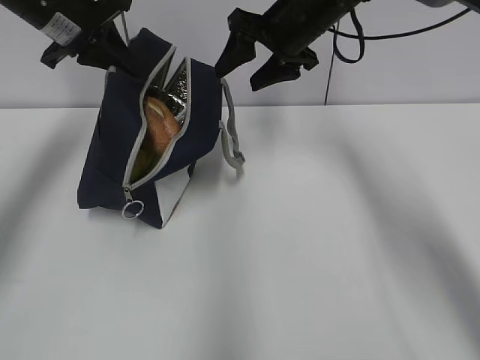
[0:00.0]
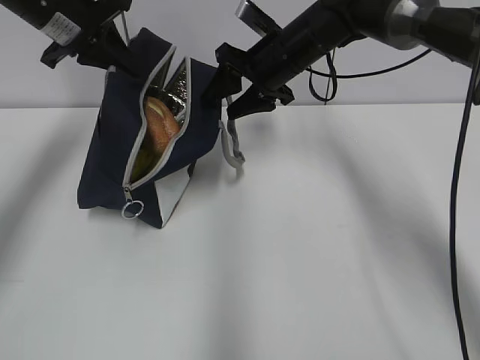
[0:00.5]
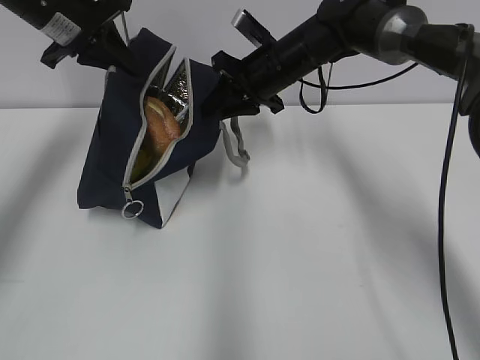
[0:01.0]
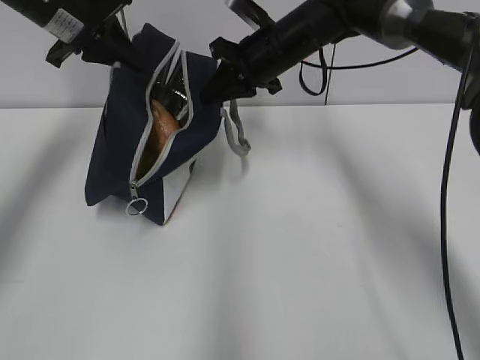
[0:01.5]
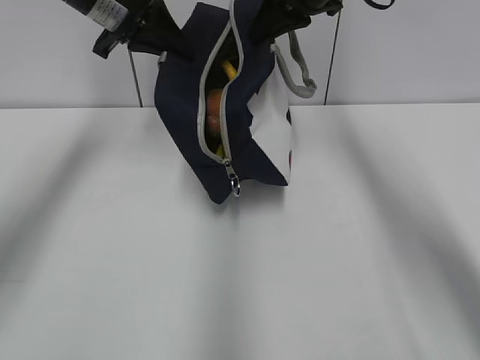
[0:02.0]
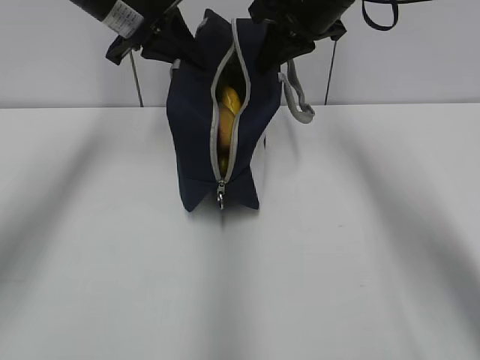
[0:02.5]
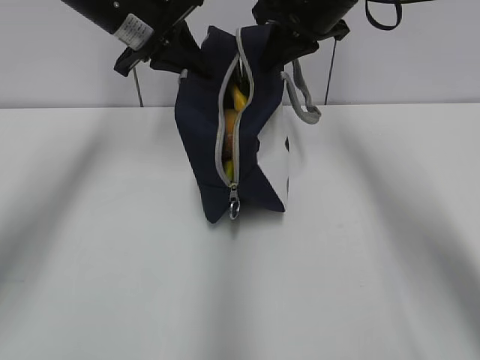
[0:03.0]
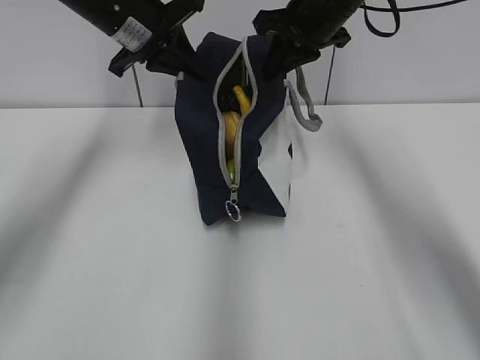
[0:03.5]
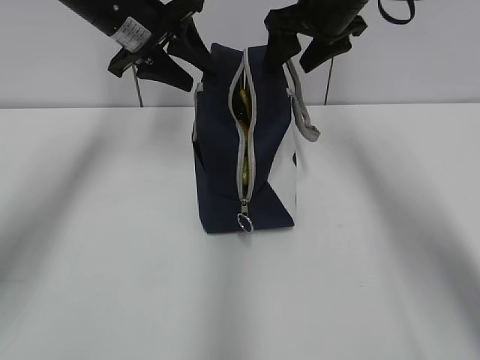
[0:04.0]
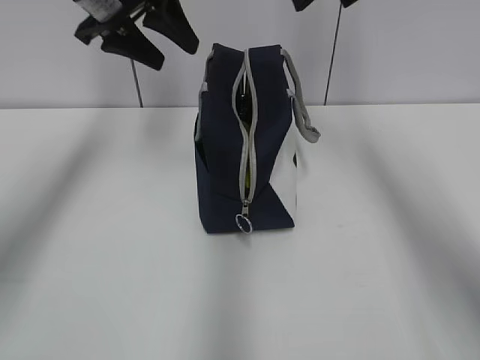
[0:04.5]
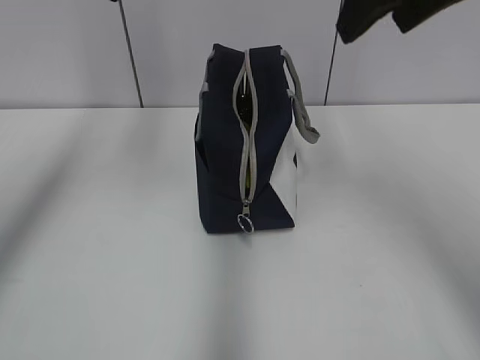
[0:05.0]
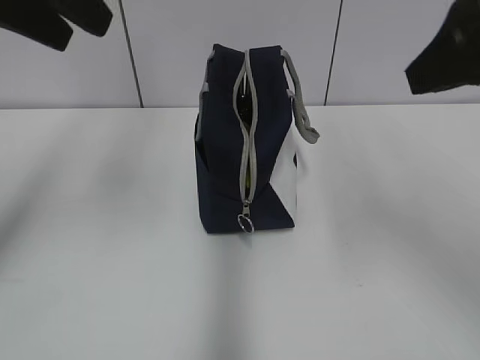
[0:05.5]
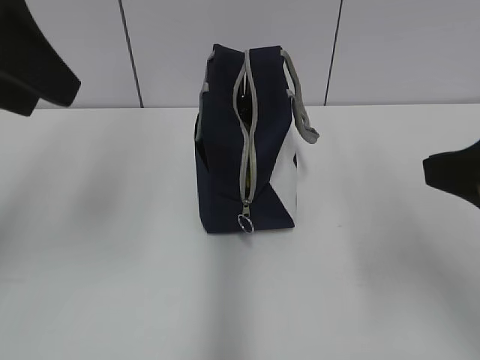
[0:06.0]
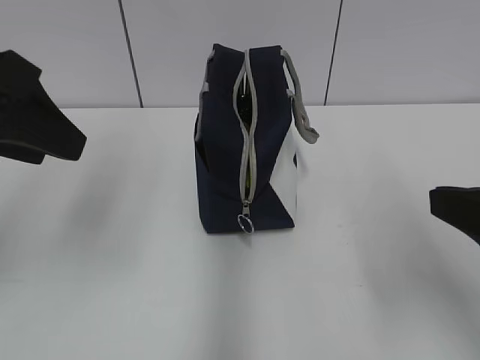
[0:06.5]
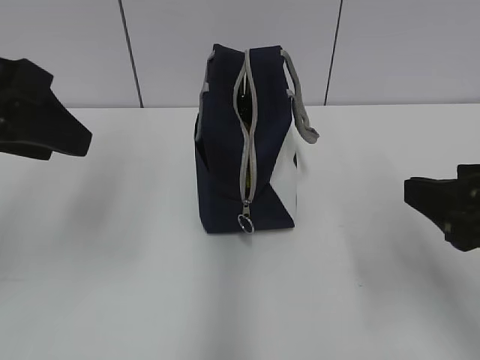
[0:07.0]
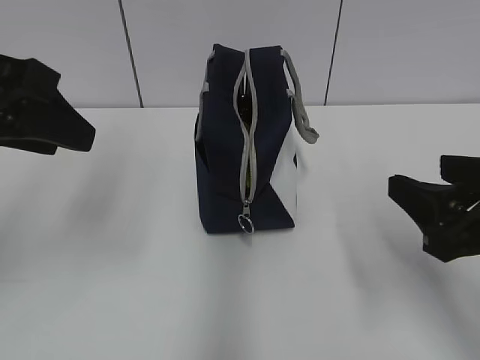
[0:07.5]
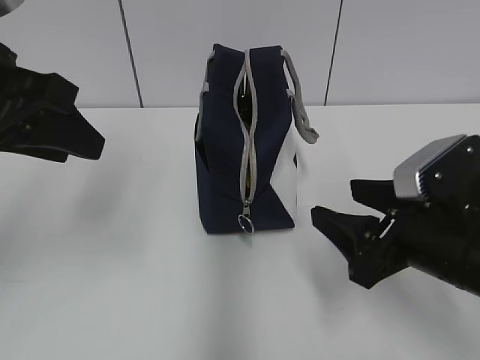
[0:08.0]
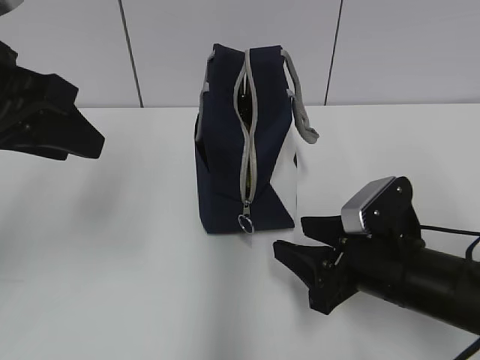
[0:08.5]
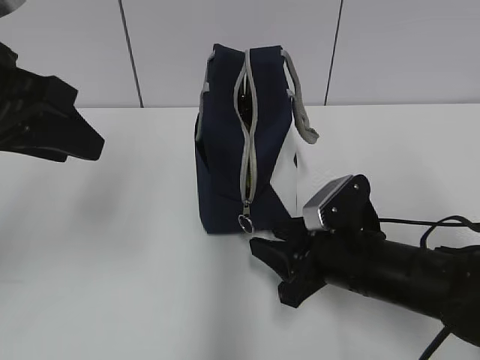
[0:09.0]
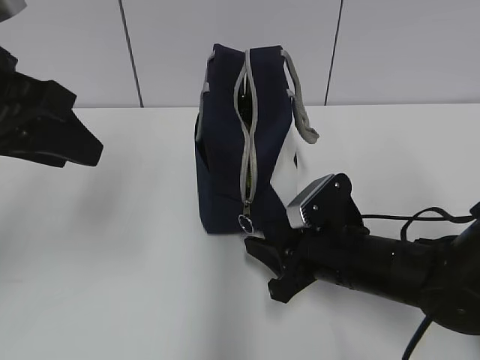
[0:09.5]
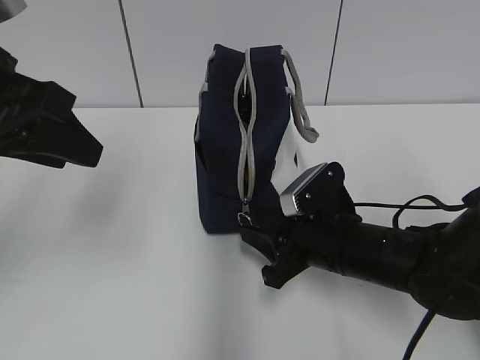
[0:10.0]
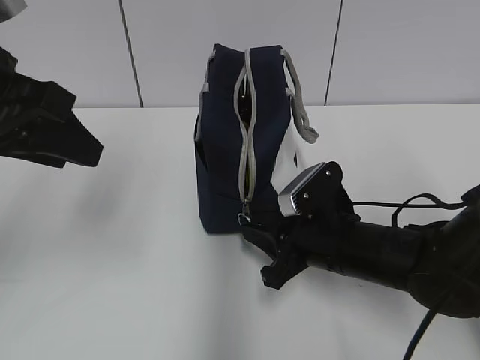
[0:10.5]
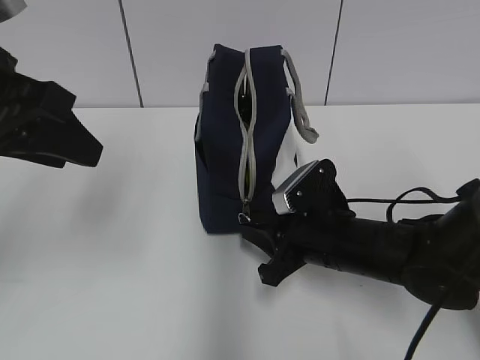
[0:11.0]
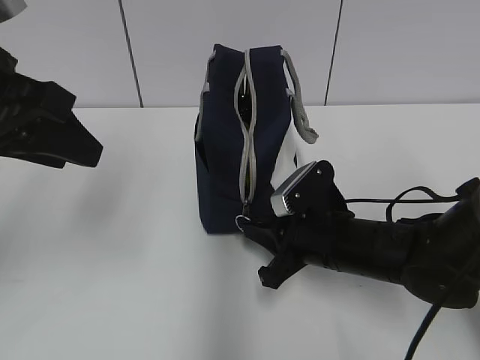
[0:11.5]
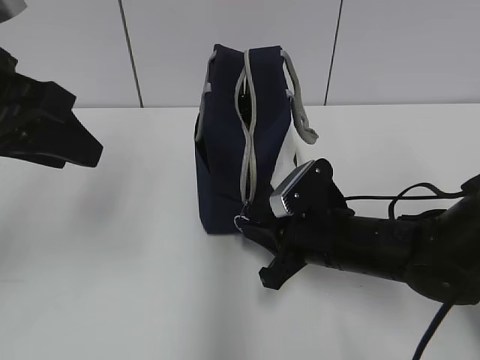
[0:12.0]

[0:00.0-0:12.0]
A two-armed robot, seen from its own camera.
Step, 1.0 to 3.5 s: Move the lunch bag to the right.
0.0 to 2.0 s: The right gripper heads upward, covering roughly 5 cm, and closes up, while the left gripper is displaced to the right by approximately 5 cm.
2.0 to 4.0 s: The left gripper opens. Meanwhile the right gripper opens its fingers.
4.0 to 6.0 s: The right gripper moves backward, roughly 30 cm, while the left gripper moves backward and upward, roughly 25 cm.
6.0 to 8.0 s: The right gripper goes approximately 15 cm downward, while the left gripper moves downward, roughly 5 cm.
8.0 to 10.0 s: The right gripper goes approximately 15 cm downward, forward and to the left, and closes.
10.0 to 12.0 s: The right gripper closes.

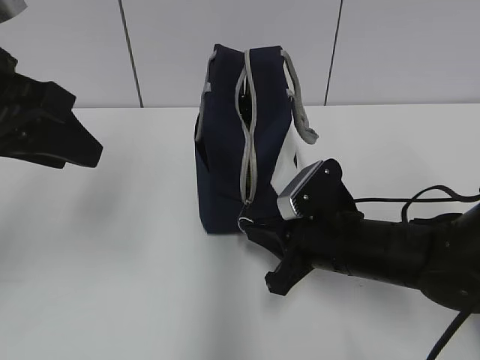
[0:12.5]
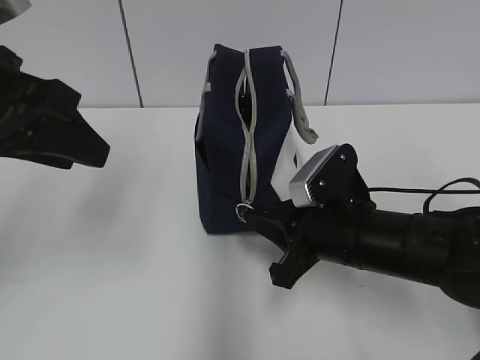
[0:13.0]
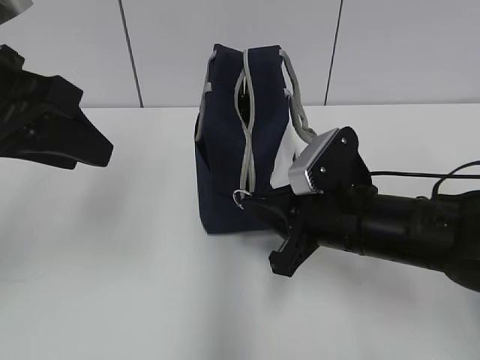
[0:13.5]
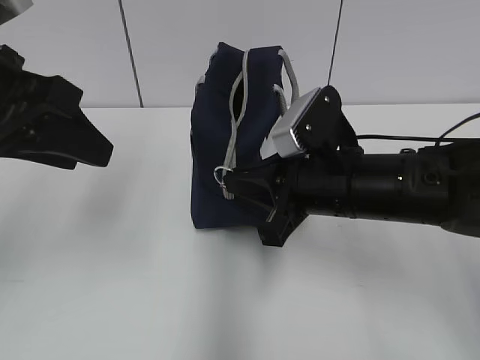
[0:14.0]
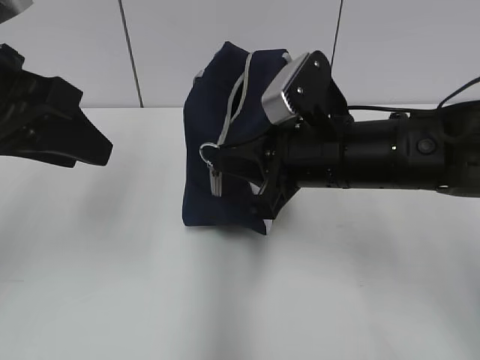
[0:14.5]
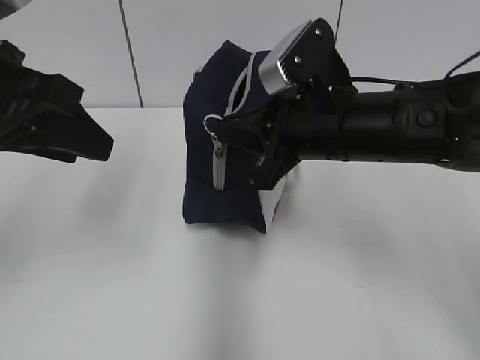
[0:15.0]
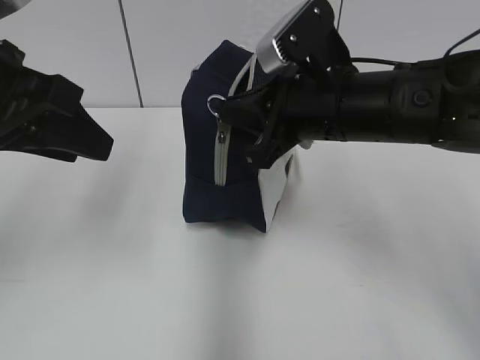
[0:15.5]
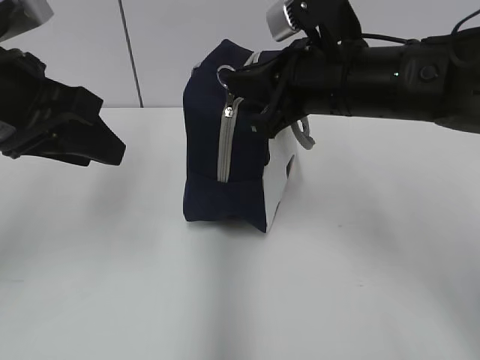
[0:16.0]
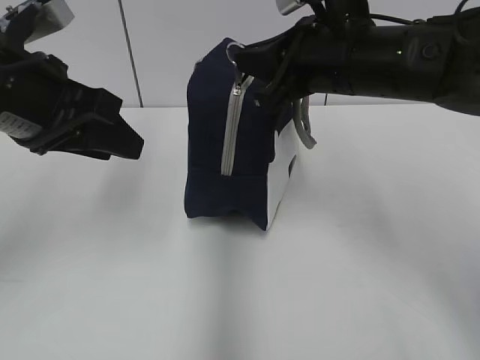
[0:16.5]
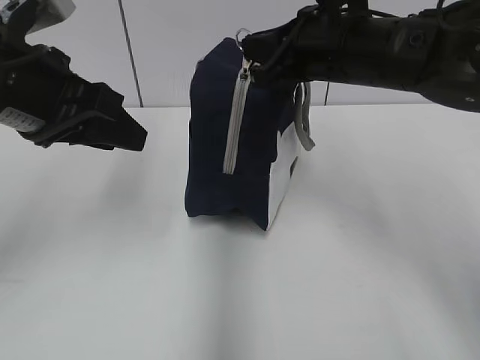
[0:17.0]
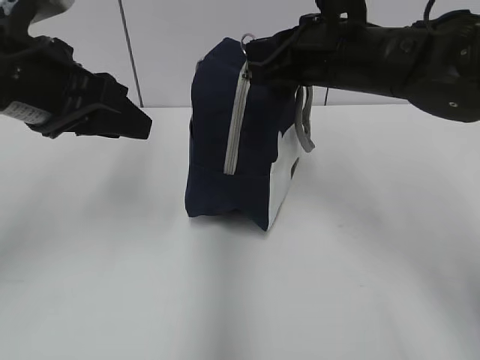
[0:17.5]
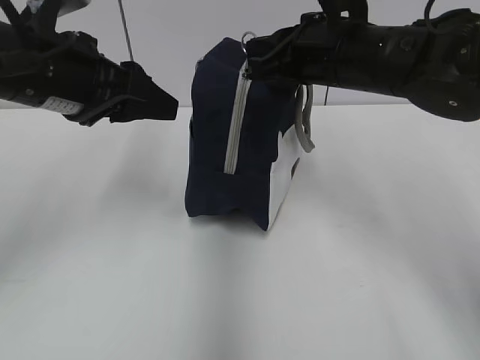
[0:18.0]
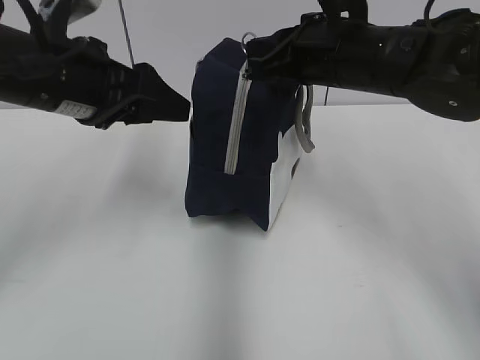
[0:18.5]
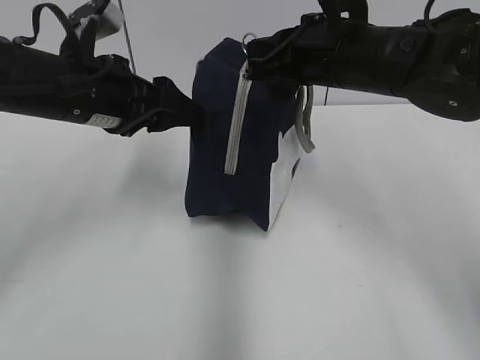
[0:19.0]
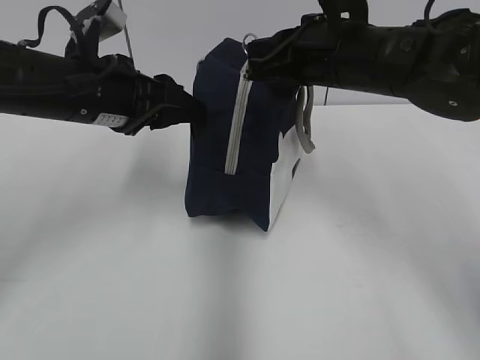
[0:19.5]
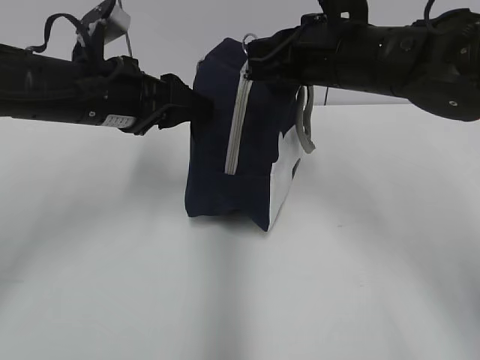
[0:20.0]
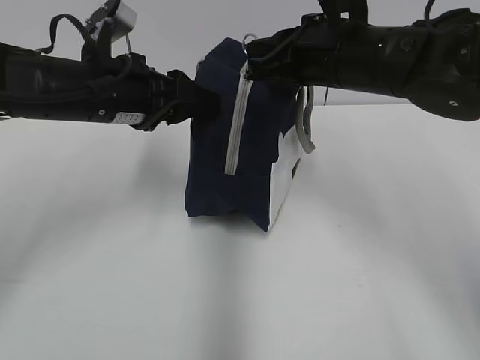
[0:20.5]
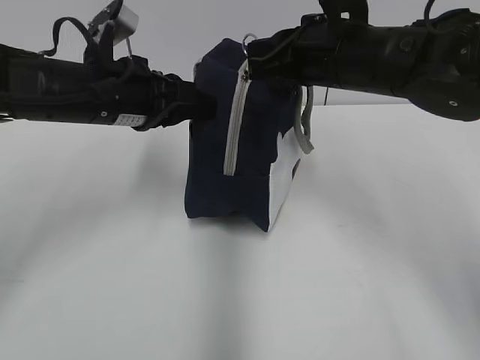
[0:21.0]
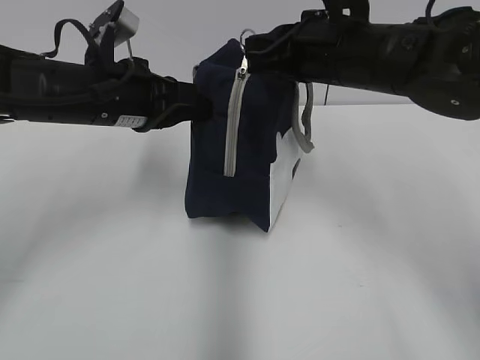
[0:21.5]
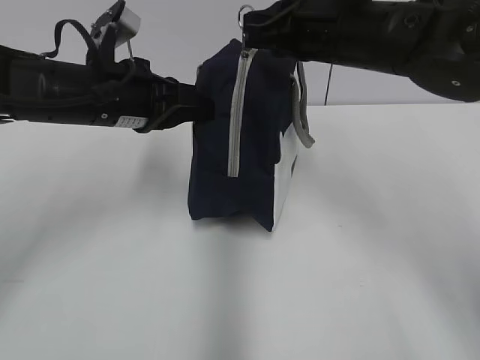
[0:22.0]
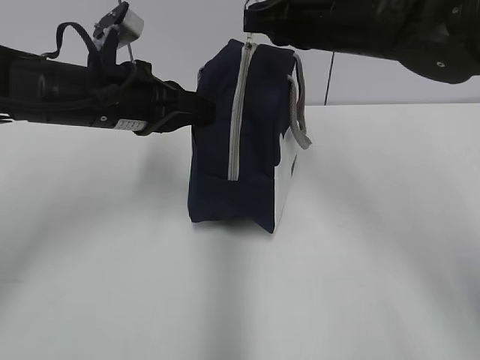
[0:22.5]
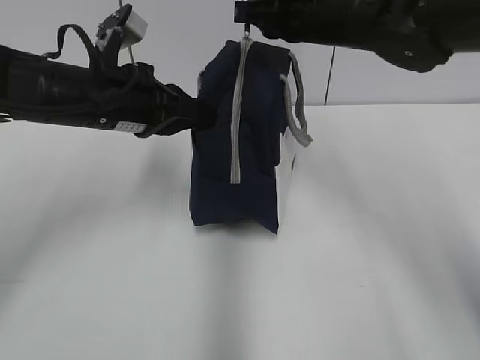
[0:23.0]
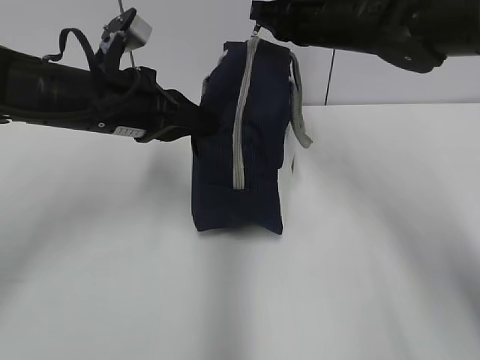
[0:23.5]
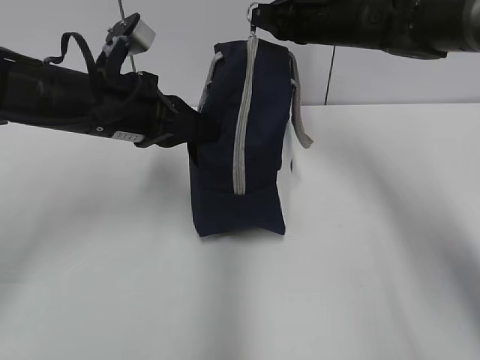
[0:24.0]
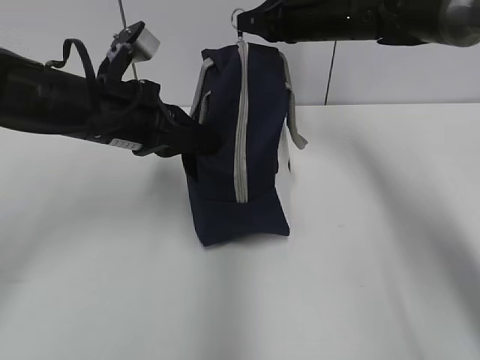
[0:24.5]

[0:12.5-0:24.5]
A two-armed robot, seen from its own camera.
Step, 12.5 to 21.0 s: Grab the lunch bag with your left hand.
12.5 to 14.5 s: The right gripper travels upward by approximately 10 cm.
14.5 to 16.5 s: The right gripper goes about 10 cm upward and forward.
16.5 to 18.5 s: The grippers make only small movements.
18.5 to 20.5 s: The left gripper shifts by some 5 cm.
20.5 to 22.5 s: The left gripper closes up.
22.5 to 24.5 s: The right gripper travels forward by about 10 cm.

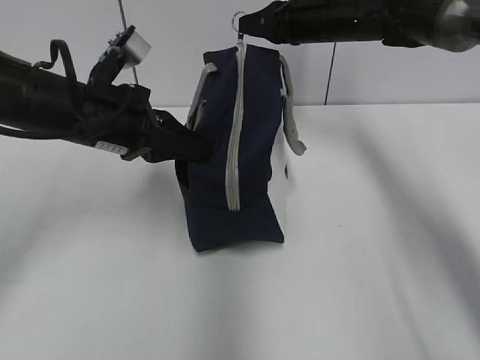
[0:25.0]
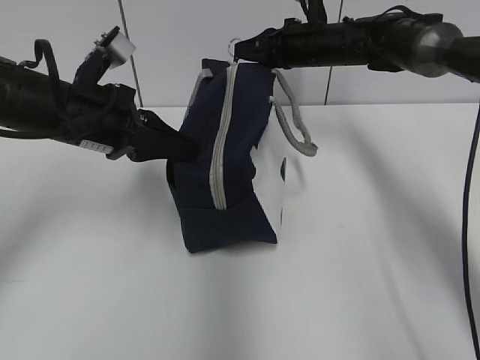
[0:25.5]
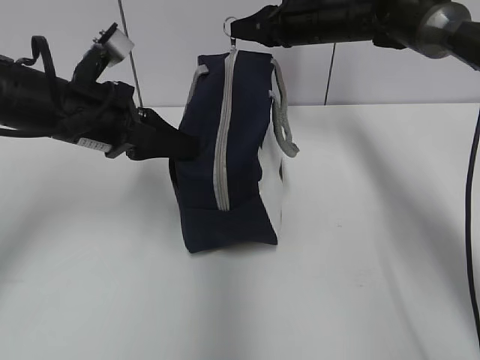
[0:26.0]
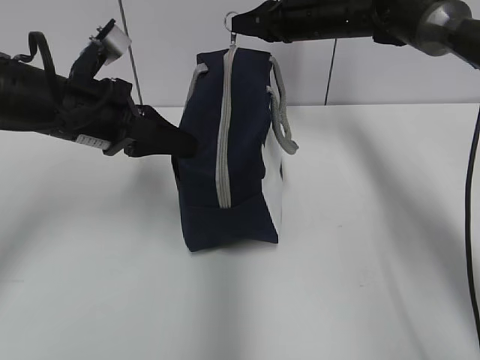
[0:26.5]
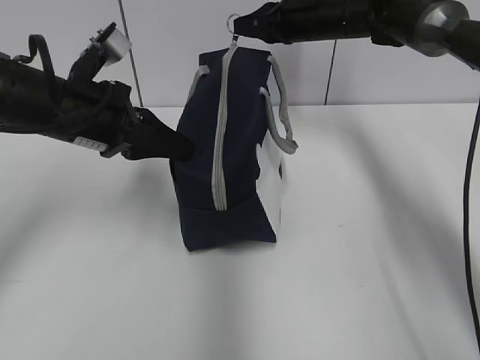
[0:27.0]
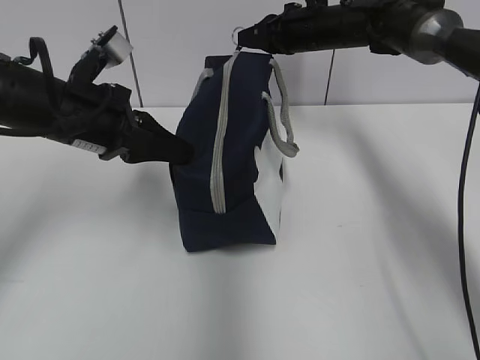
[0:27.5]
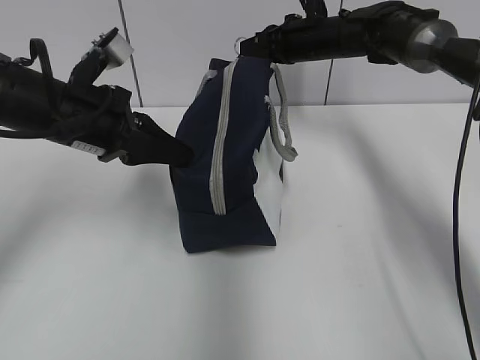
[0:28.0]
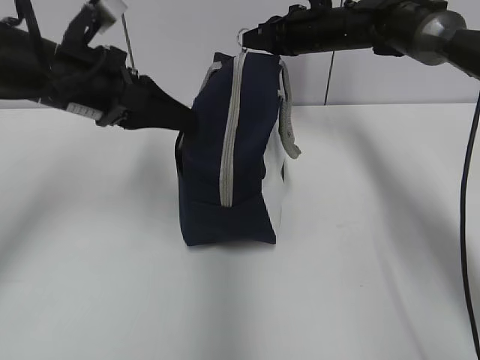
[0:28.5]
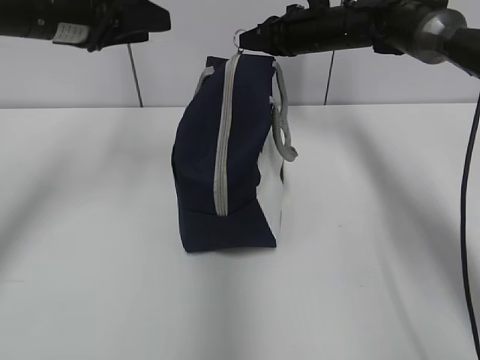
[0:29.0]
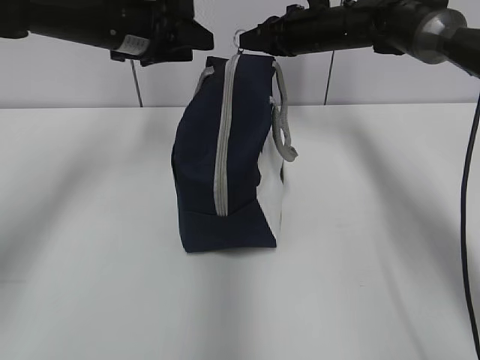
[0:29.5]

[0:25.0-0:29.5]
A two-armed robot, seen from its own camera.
25.0 to 27.0 s: The grippers make only small movements.
27.0 to 29.5 s: The left gripper shifts about 10 cm forward and upward, and opens up.
